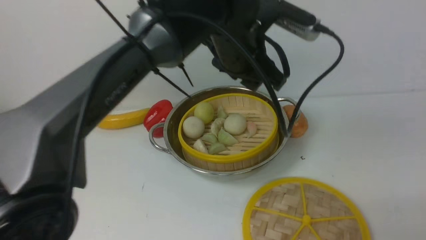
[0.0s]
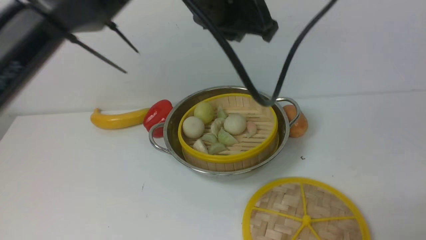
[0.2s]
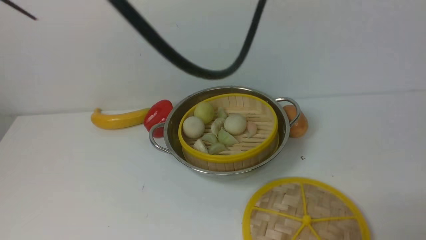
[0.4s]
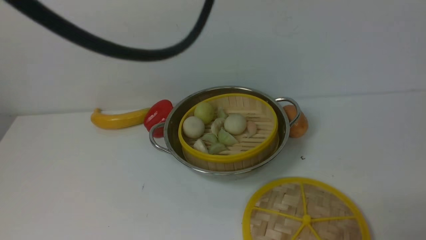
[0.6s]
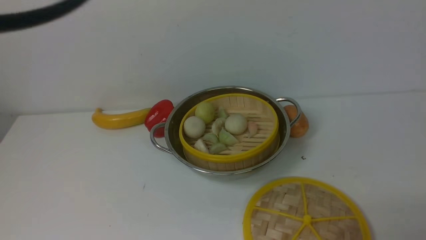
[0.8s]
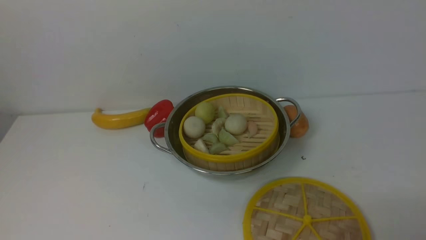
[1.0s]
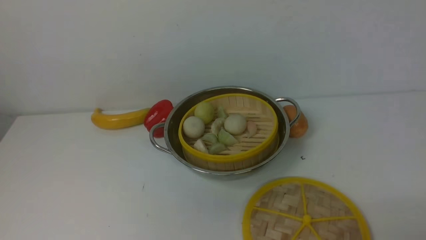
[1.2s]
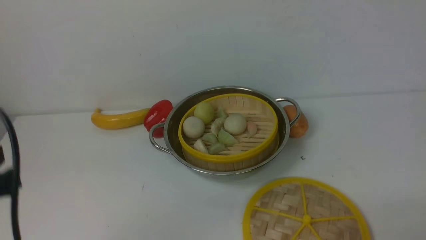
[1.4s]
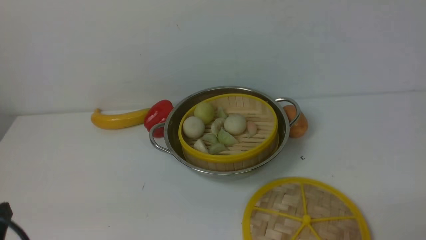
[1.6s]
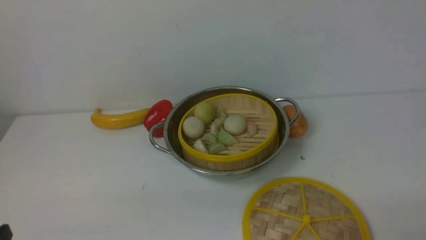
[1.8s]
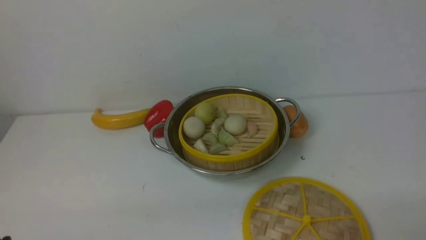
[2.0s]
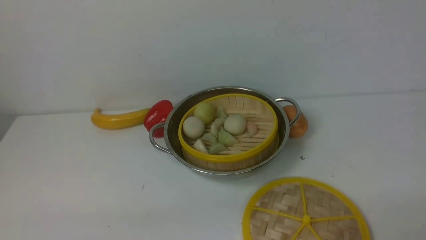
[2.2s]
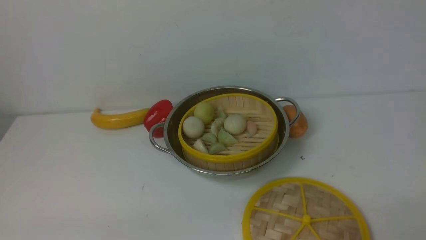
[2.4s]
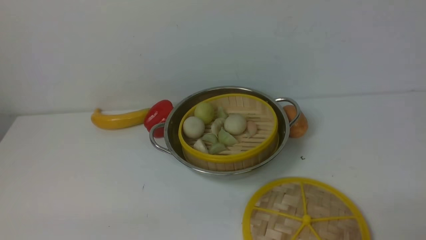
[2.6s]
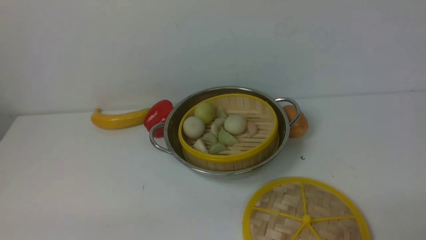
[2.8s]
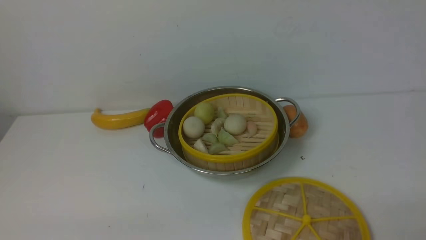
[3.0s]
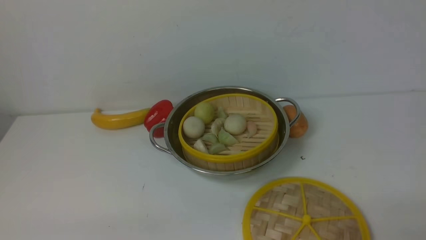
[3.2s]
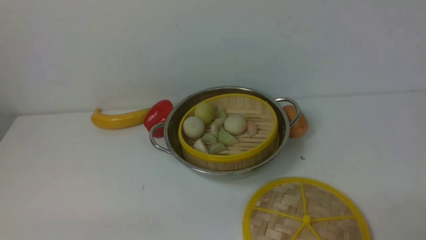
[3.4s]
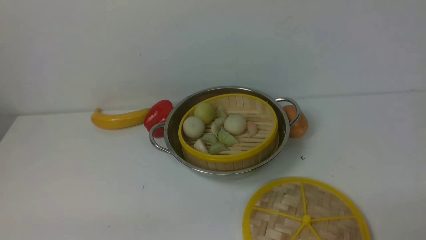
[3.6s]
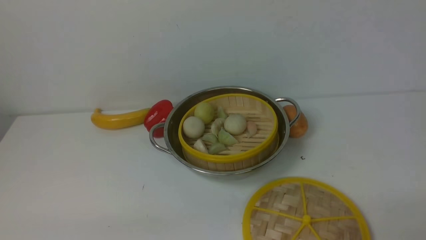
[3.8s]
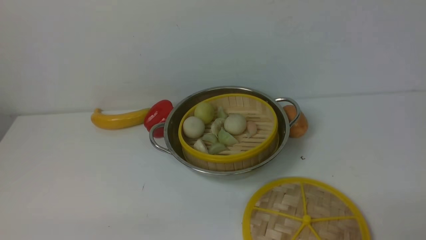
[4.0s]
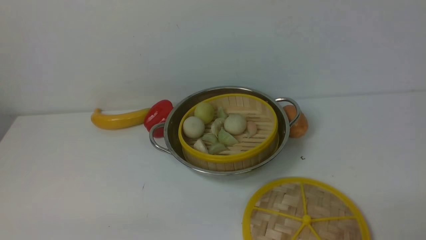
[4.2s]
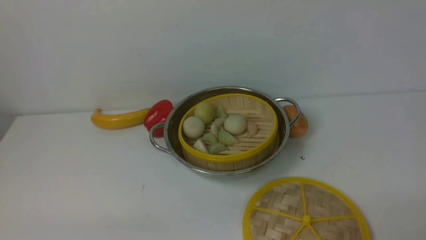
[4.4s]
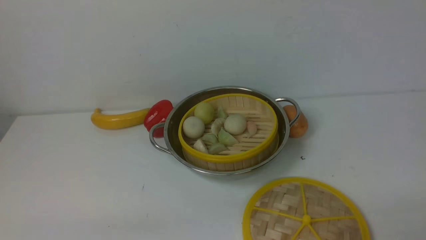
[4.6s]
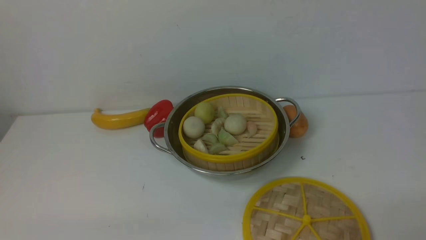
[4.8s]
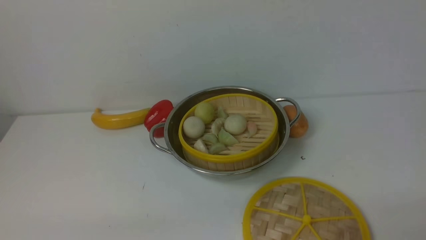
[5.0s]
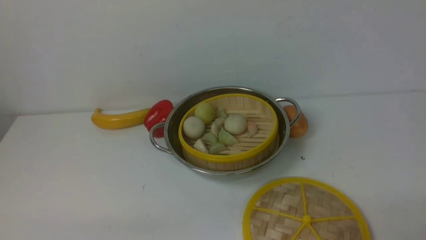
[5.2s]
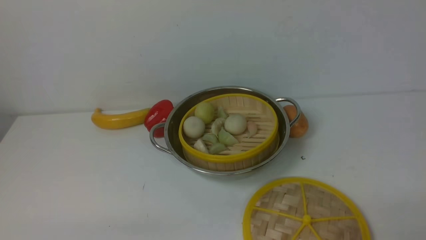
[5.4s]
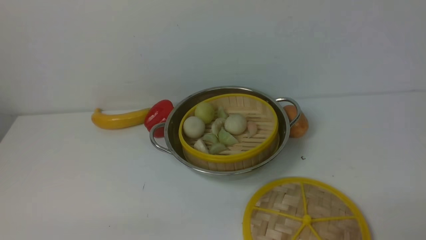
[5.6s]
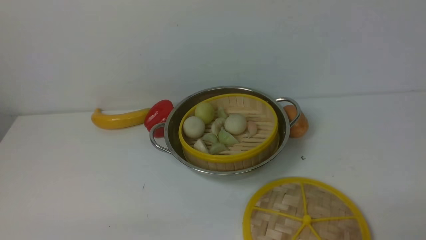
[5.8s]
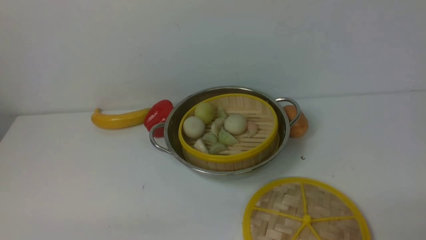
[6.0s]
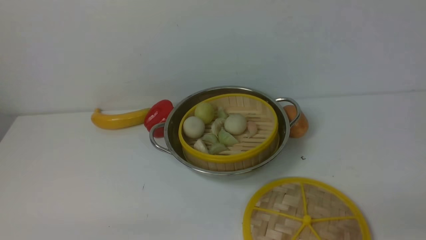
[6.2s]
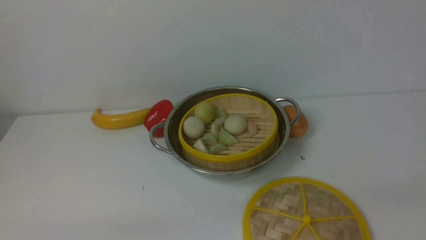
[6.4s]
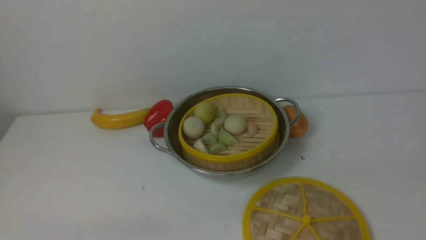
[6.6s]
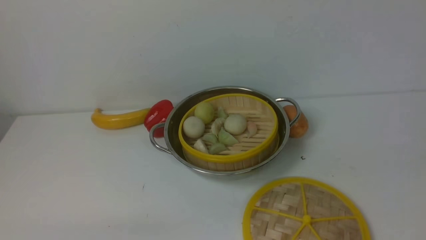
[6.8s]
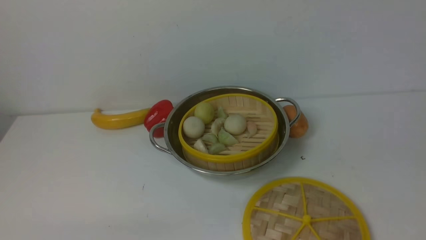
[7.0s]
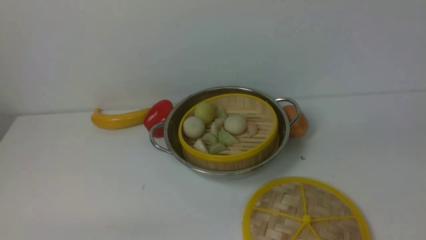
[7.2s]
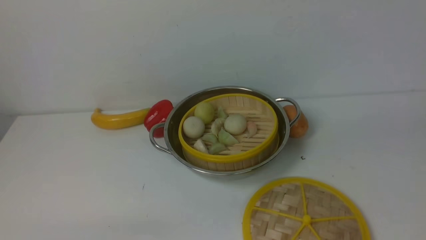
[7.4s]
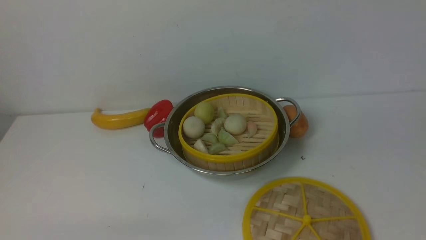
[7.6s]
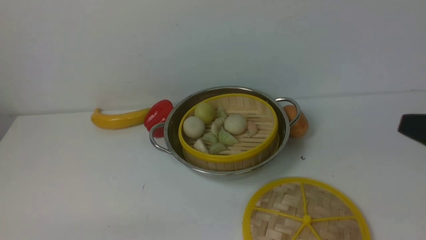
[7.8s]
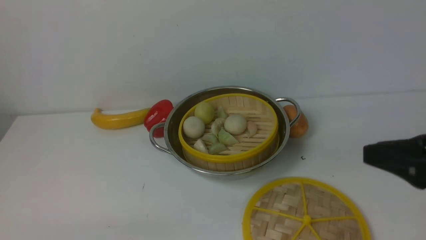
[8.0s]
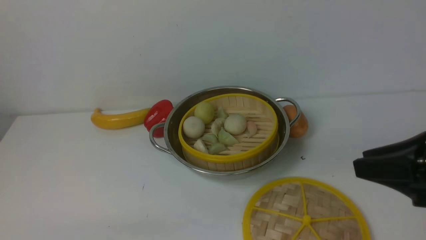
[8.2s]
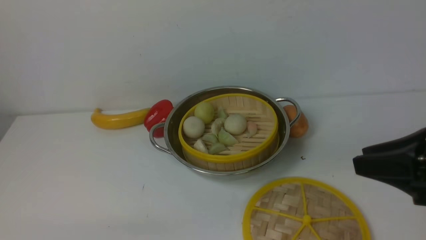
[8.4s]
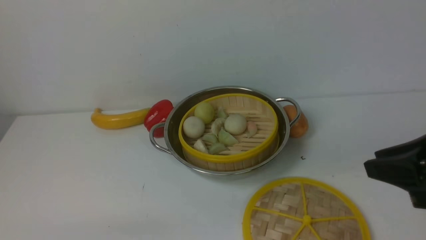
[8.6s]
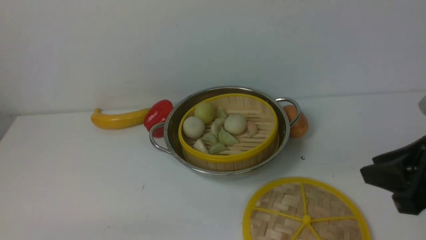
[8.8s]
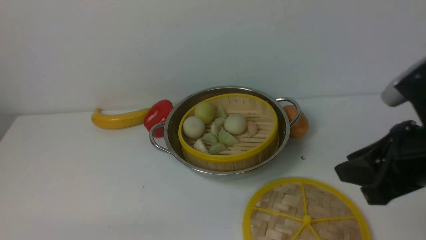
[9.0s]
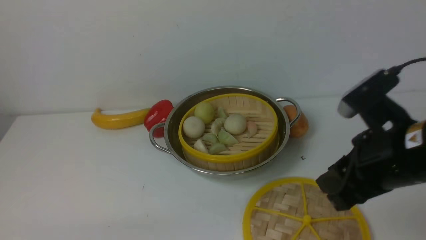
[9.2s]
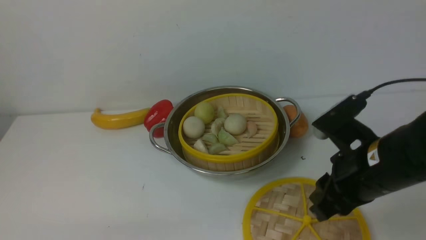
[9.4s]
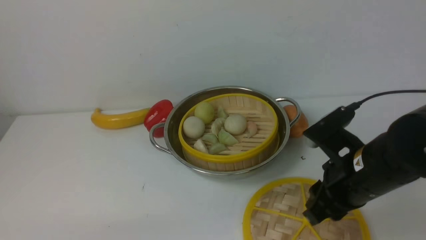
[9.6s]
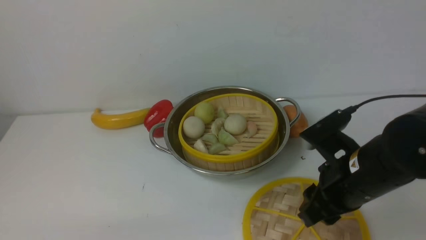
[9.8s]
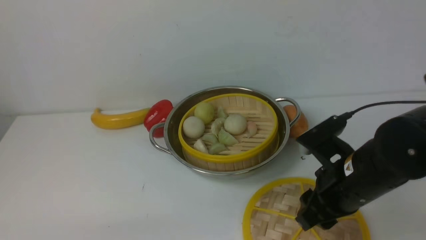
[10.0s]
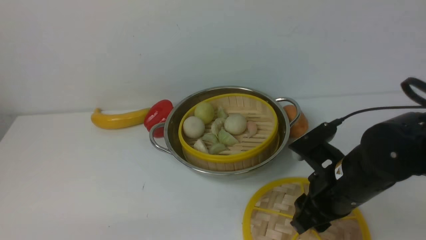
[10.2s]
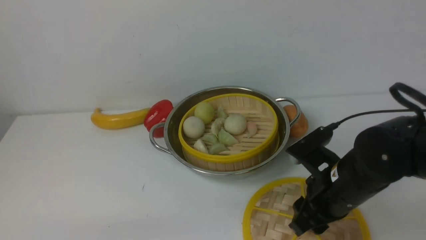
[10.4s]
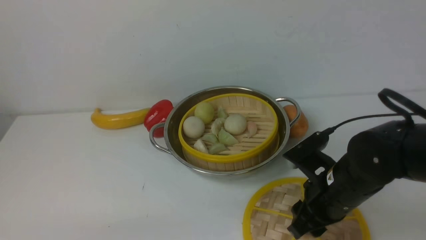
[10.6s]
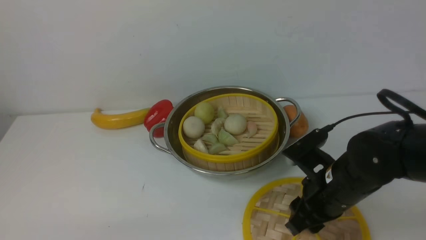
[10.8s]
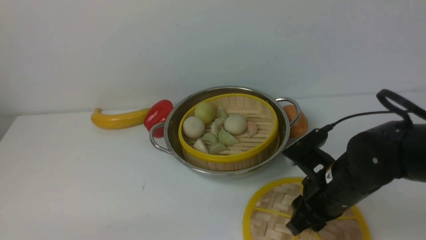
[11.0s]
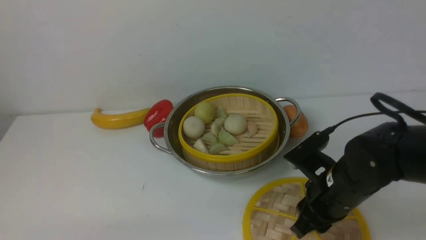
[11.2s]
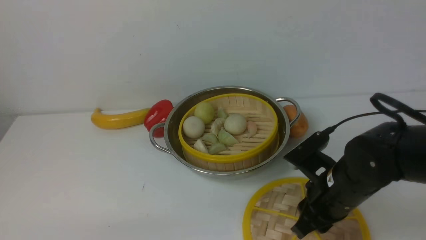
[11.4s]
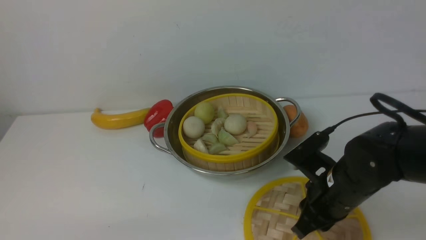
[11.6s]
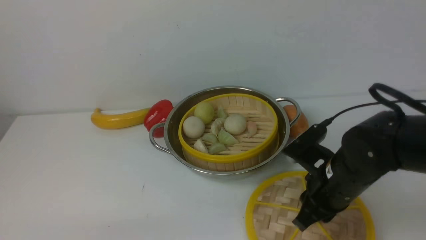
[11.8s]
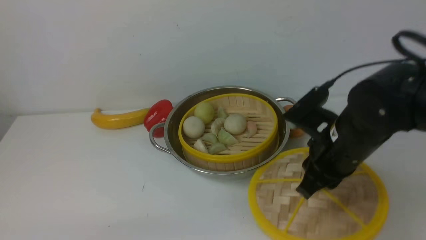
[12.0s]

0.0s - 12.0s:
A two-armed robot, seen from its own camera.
Task of the whole recording: place the steamer in the pot on the white table, and put the lid on the steamer.
0.0s - 1.6s: The left gripper shifts roughly 40 cm backward and to the left, and closes its fingers.
3.0s - 4.4s: Both grippers stay put.
4.4s - 6.0s: Neither gripper changes place.
7.6s - 9.0s: The right gripper goes some 10 cm to the left and forward.
9.0s - 10.4s: The right gripper goes roughly 15 cm downward and to the left.
10.4s - 12.0s: The right gripper is displaced upward by approximately 5 cm, and closes up.

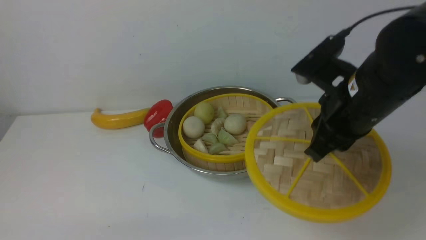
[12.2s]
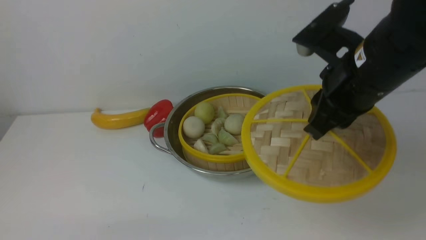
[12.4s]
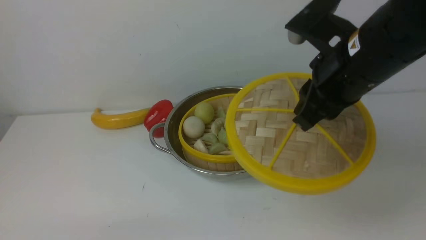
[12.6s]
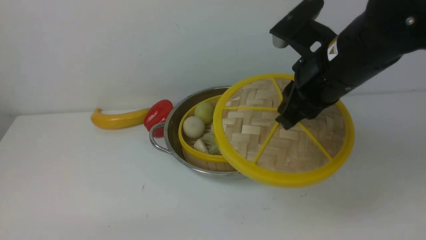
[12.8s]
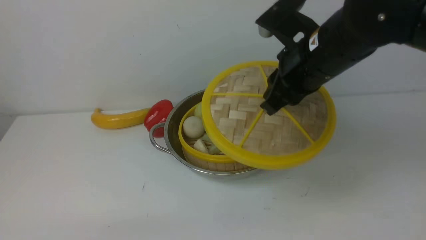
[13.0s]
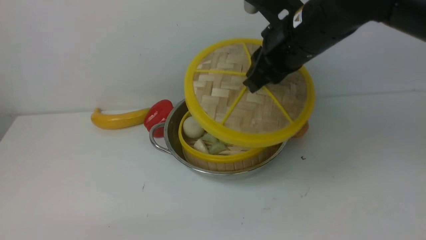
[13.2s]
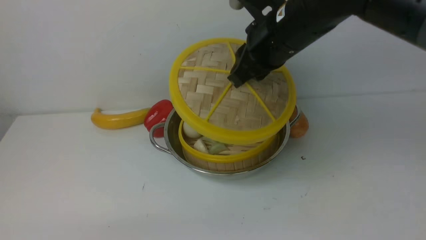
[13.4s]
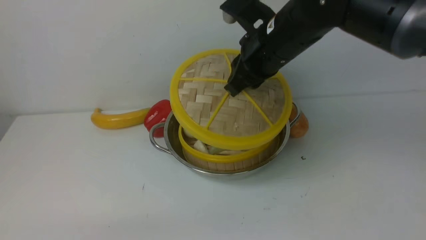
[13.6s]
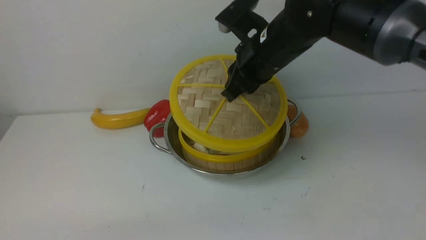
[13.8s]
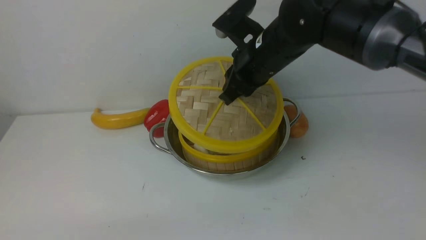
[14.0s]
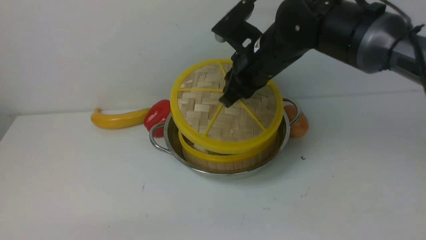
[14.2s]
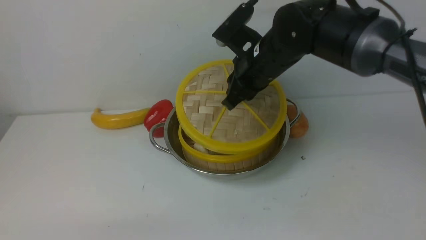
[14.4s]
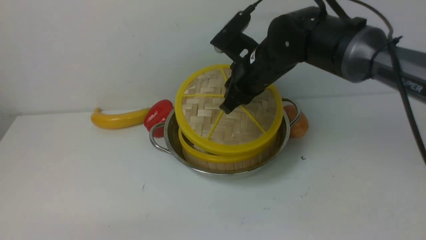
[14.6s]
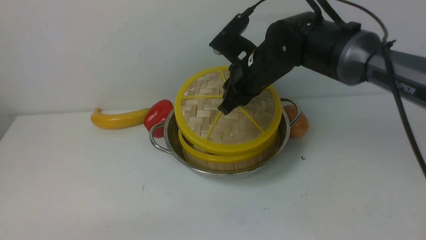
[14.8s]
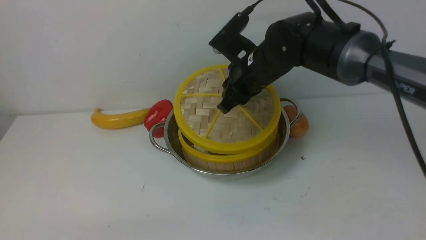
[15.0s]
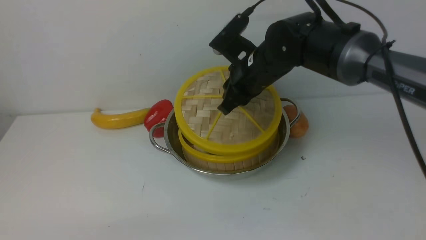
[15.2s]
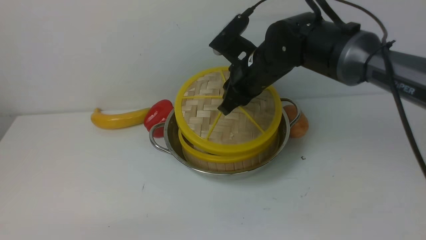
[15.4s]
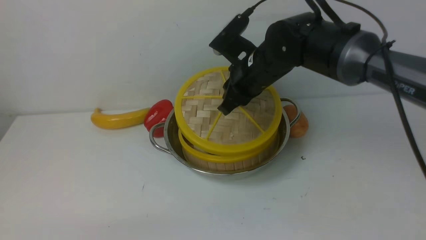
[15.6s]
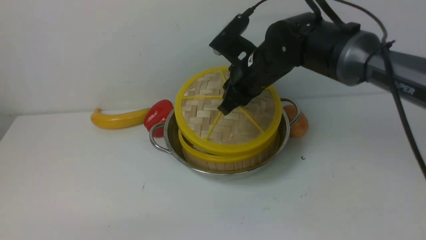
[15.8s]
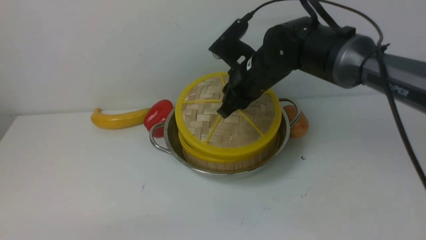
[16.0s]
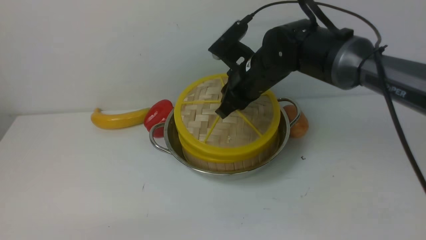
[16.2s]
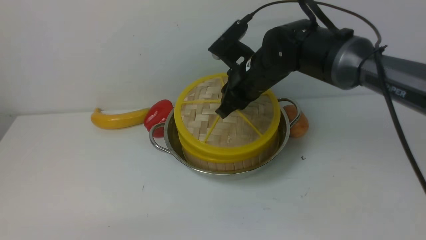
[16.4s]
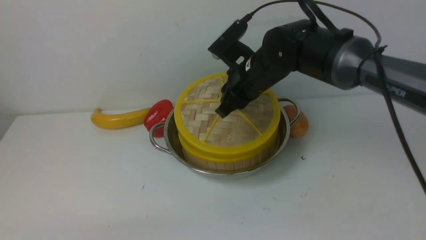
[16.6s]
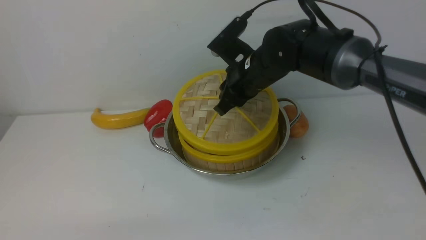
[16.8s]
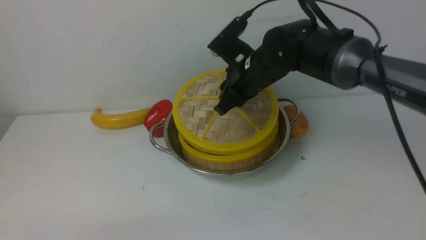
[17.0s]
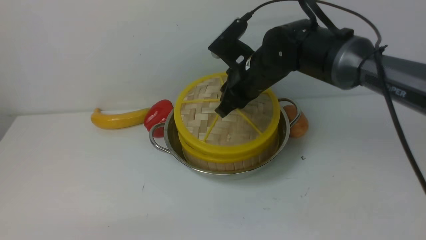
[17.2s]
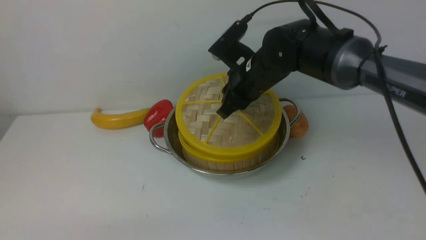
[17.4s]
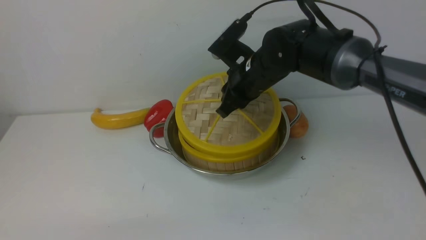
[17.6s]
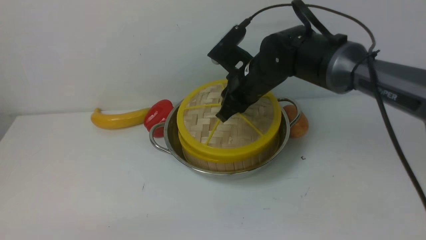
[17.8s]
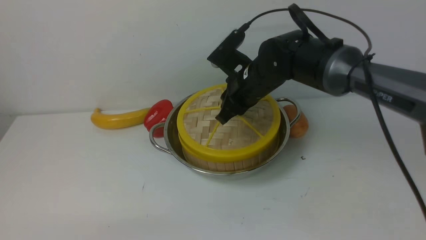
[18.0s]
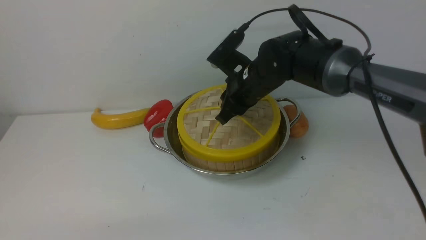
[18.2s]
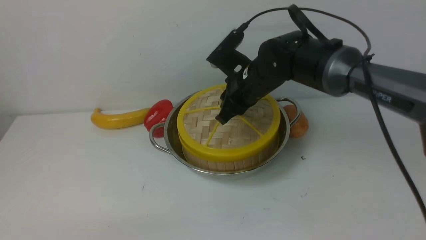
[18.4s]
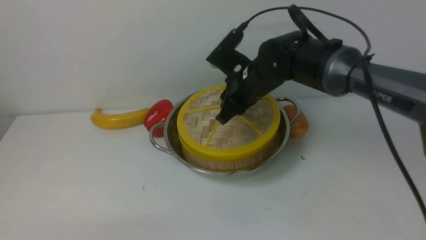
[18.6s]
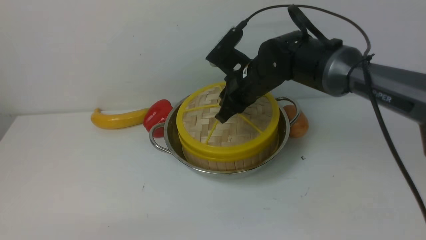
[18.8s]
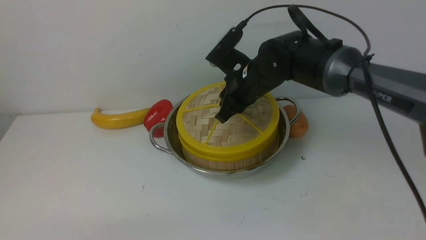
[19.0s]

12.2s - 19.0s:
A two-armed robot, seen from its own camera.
Task of the whole recording: place the steamer in the pot on the white table, and put the lid on the steamer.
12.2s - 13.6s: The right gripper is displaced forward and to the left by some 15 cm.
13.6s - 15.0s: The right gripper heads downward, covering approximately 5 cm.
15.0s - 16.2s: Neither gripper changes place.
16.2s - 17.6s: Neither gripper changes place.
17.6s - 19.0s: There are only small adjustments of the grippers.
